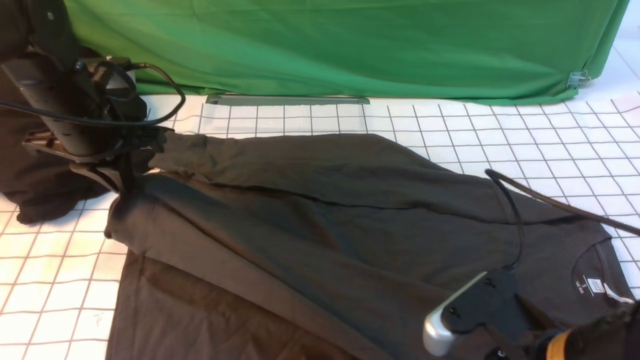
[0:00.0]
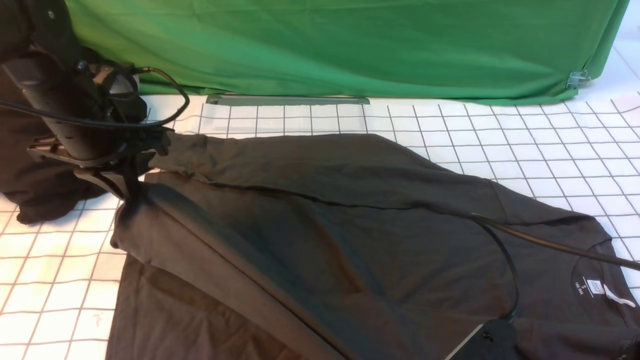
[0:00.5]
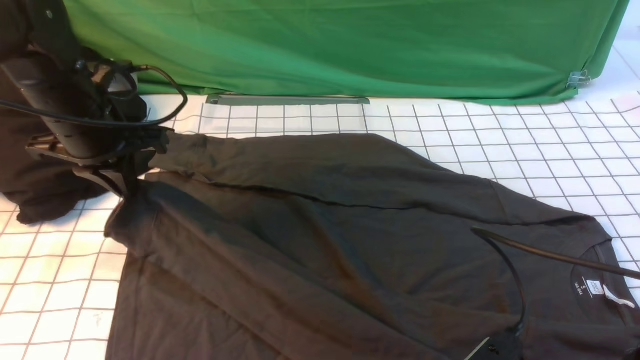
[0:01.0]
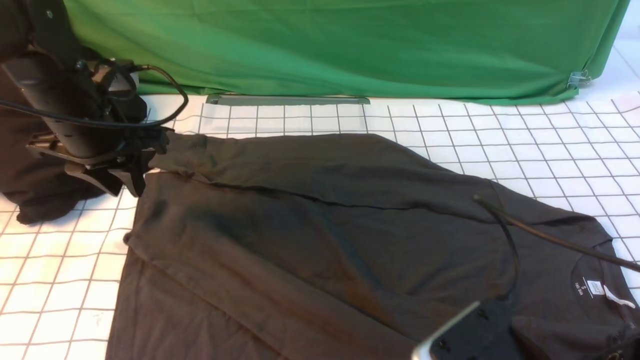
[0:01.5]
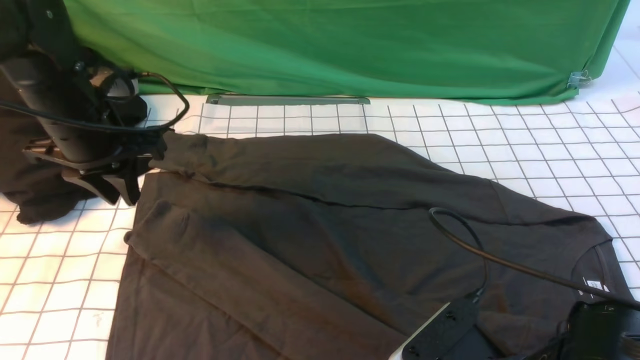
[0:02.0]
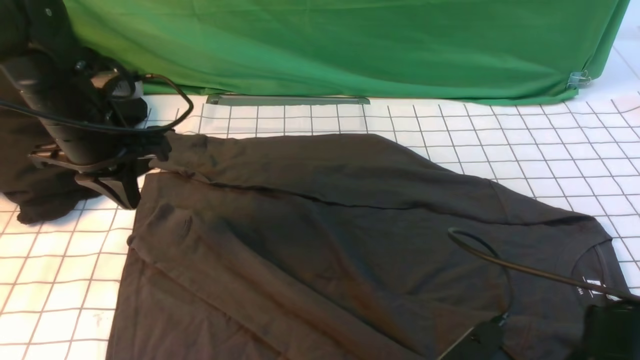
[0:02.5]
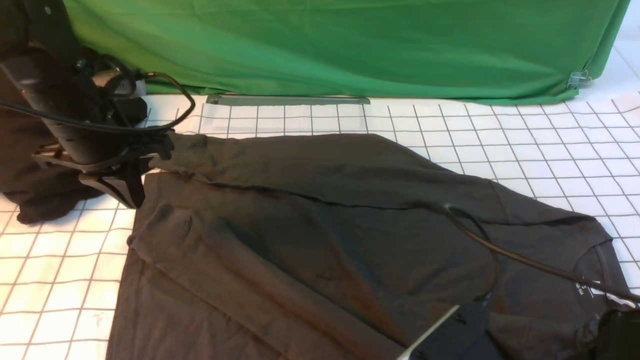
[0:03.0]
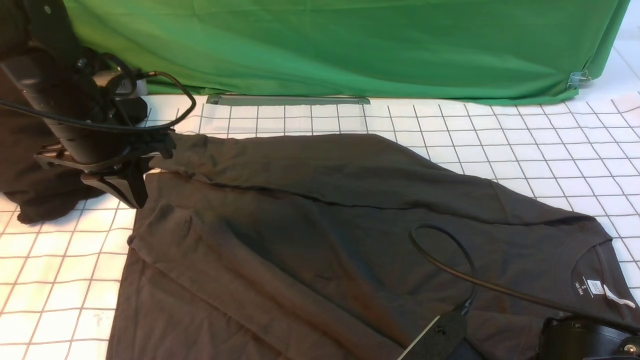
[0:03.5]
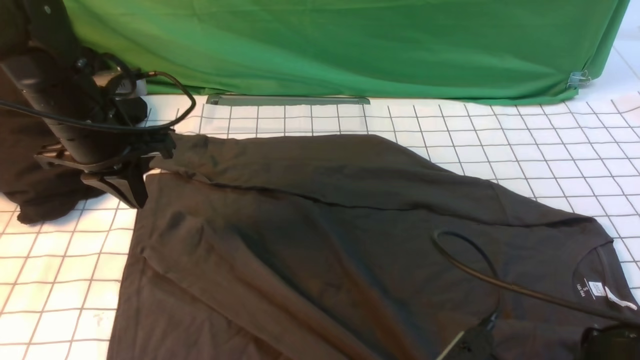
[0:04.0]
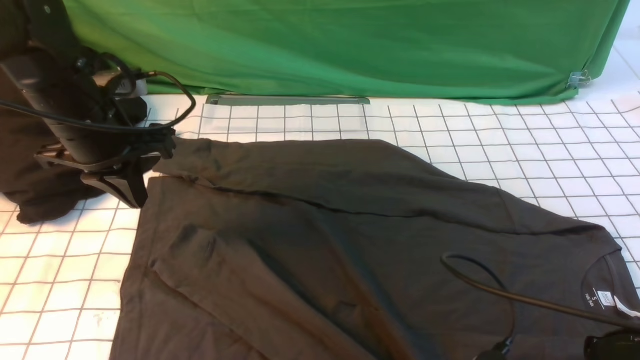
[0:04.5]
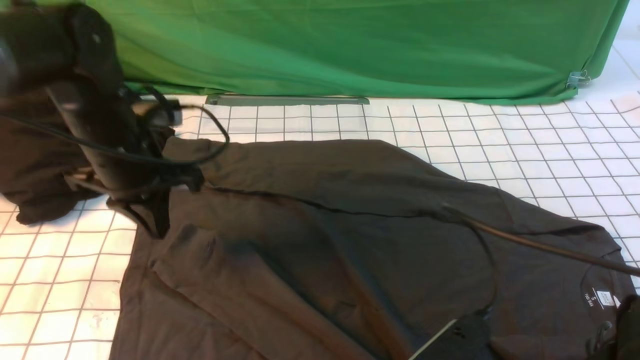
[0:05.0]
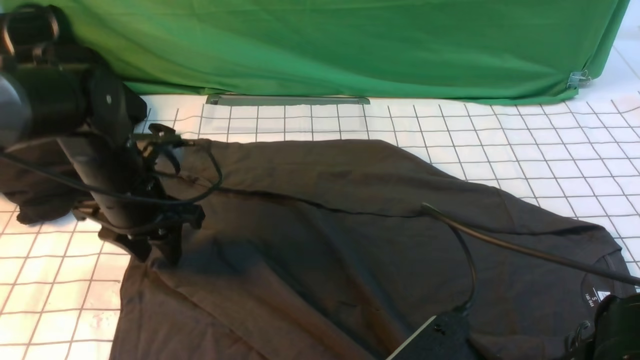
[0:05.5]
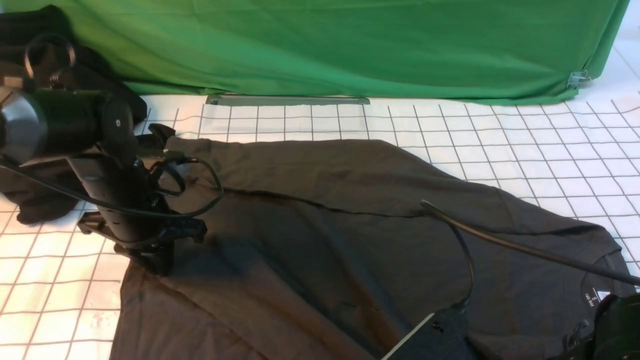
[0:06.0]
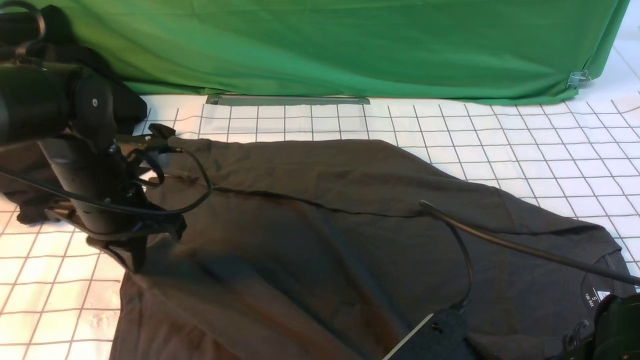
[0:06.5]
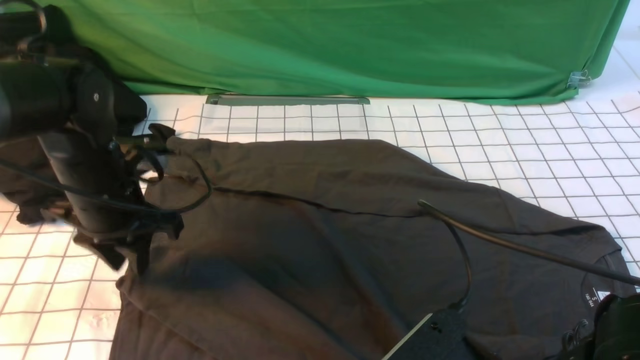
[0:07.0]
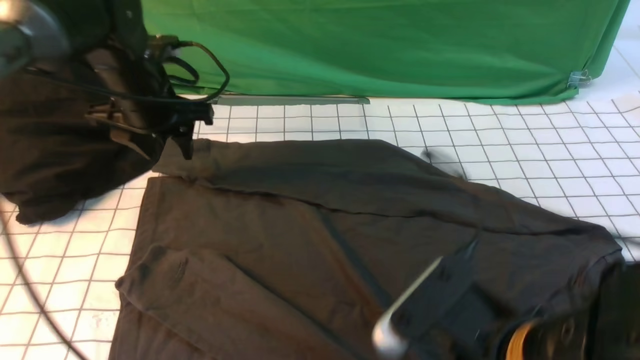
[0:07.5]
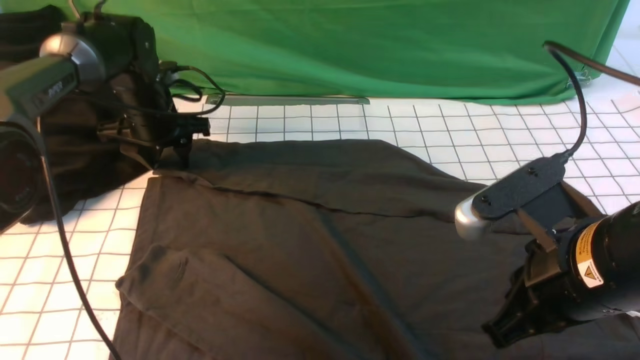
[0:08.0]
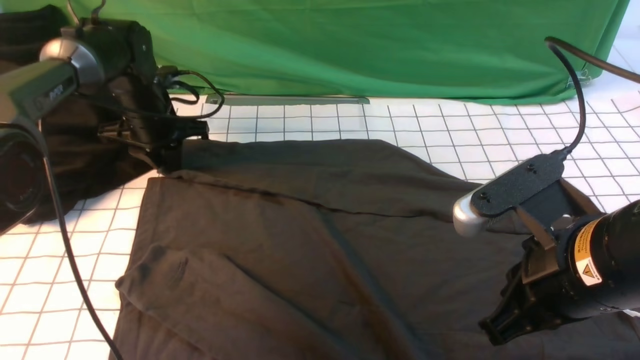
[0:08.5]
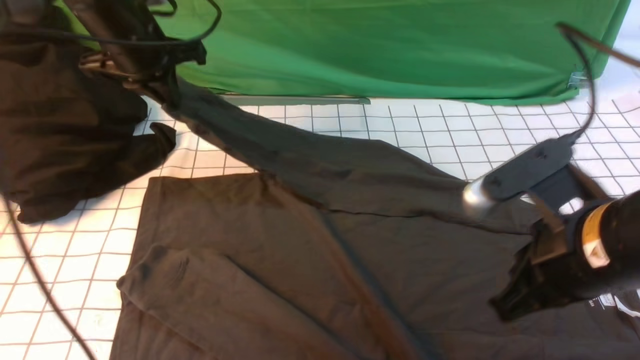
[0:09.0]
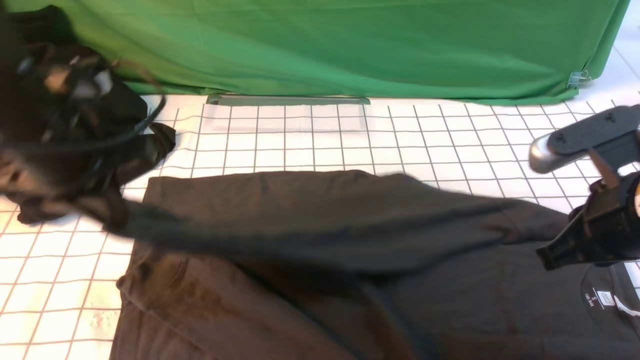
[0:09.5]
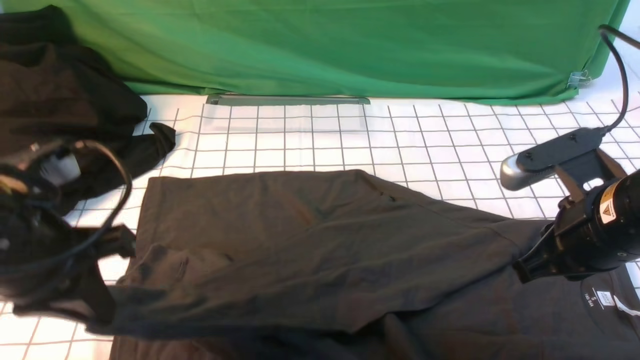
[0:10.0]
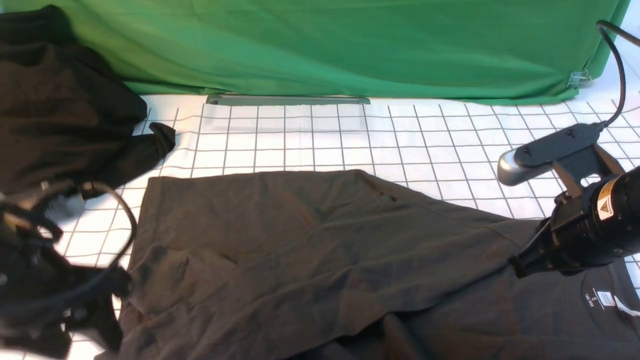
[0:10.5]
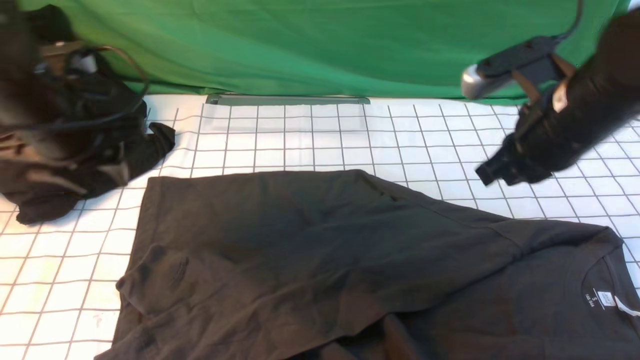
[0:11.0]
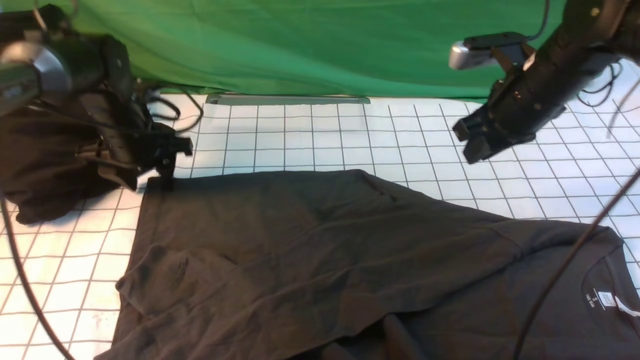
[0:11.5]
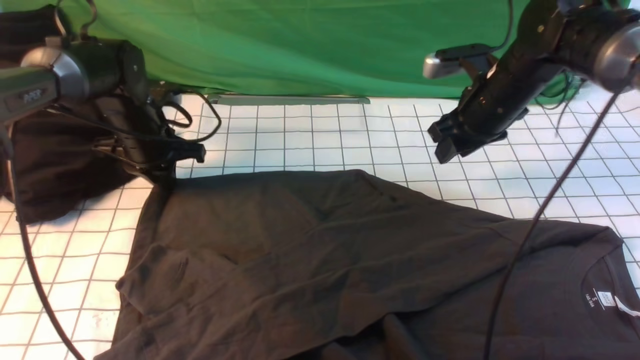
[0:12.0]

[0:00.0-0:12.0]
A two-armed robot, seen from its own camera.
Step, 0:02.0 to 0:08.5: use the left arm to clamp the cuff farthest from it.
Step, 0:09.0 to 0:10.5: use the left arm to drag and drop the cuff onto the cuff closest to the left arm.
0:00.0 to 0:02.0: The right gripper opens.
0:02.0 to 0:04.0: The right gripper closes its fingers.
0:04.0 to 0:06.0: The right gripper opens, while the left gripper travels downward by some 10 cm, and opens, then closes once more.
0:06.0 to 0:08.0: The left gripper shifts roughly 15 cm forward, and opens up. Meanwhile the right gripper heads forward and to the right, covering approximately 10 cm, and closes its fingers.
0:08.0 to 0:10.0: The left gripper travels backward by approximately 30 cm, and closes up. Meanwhile the right gripper travels forward by some 5 cm.
0:10.0 to 0:12.0: The left gripper travels forward and downward by some 30 cm, and opens, then closes again. The right gripper is displaced forward by roughly 20 cm, and opens up.

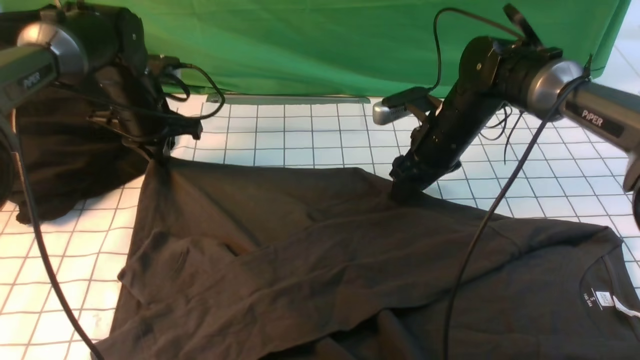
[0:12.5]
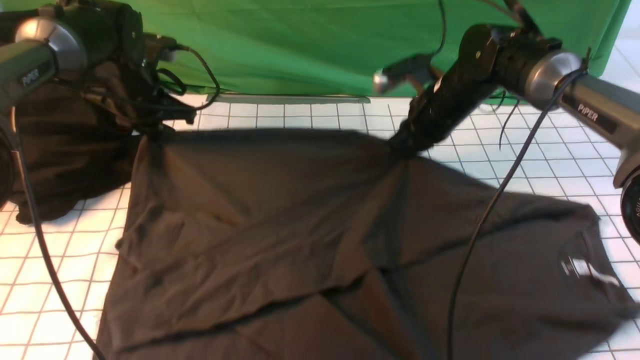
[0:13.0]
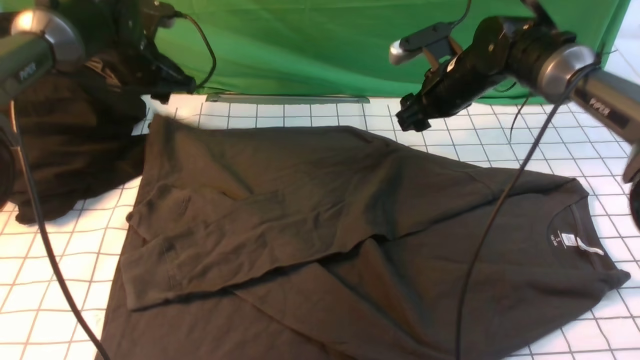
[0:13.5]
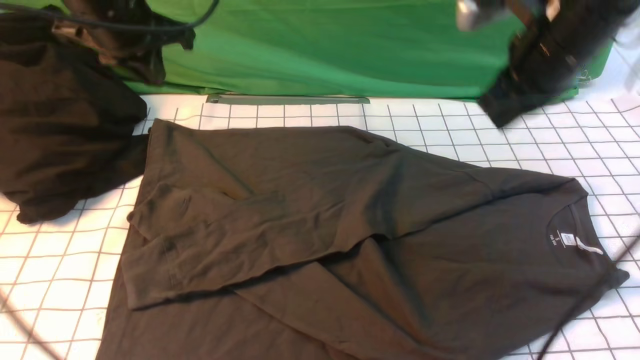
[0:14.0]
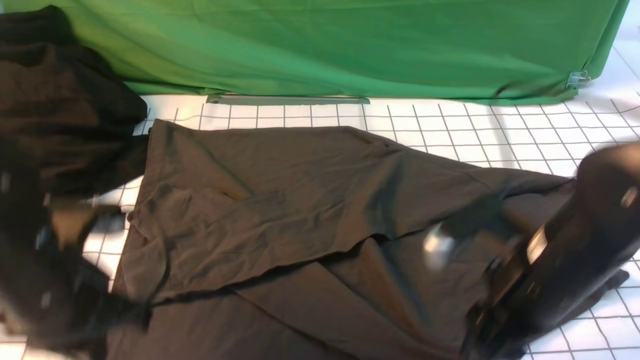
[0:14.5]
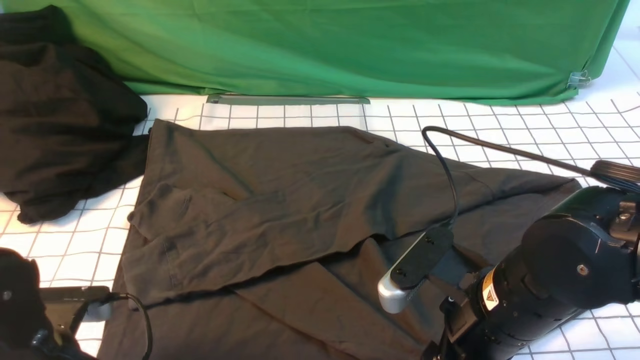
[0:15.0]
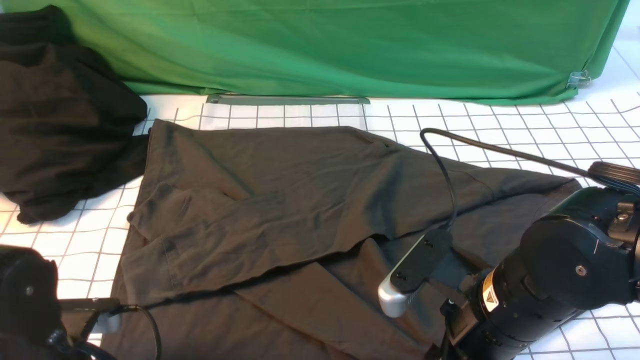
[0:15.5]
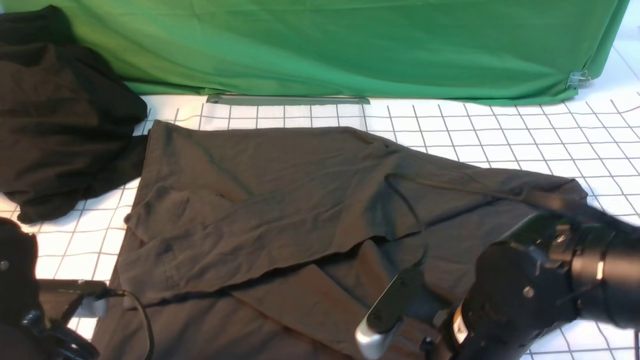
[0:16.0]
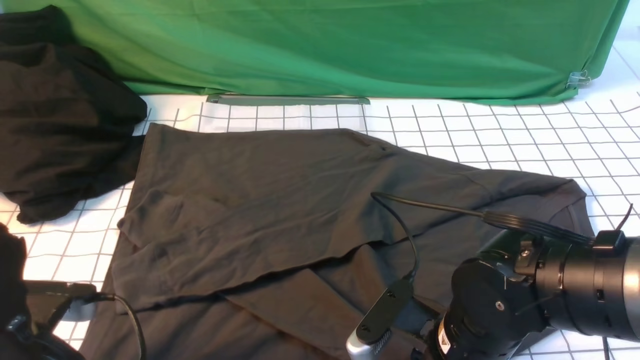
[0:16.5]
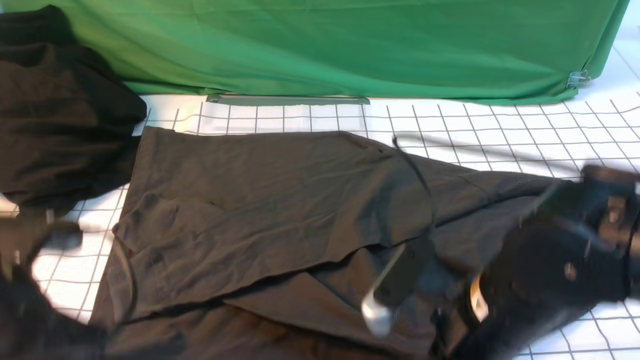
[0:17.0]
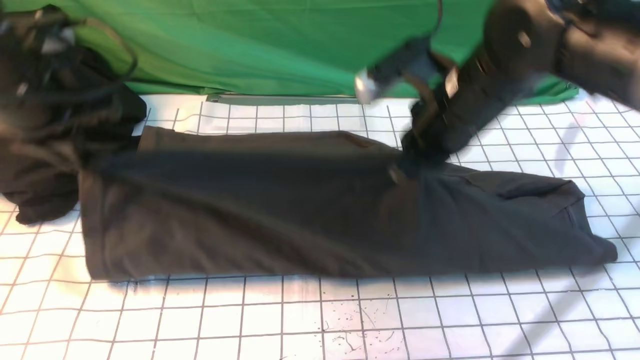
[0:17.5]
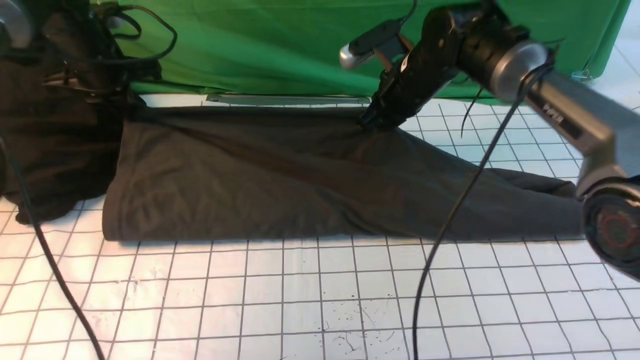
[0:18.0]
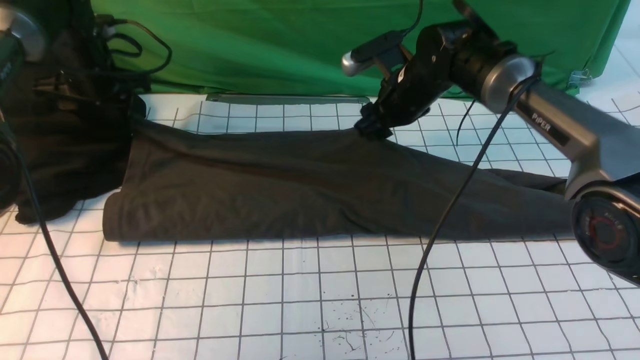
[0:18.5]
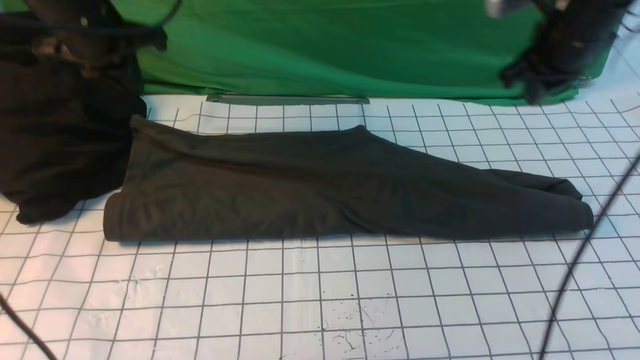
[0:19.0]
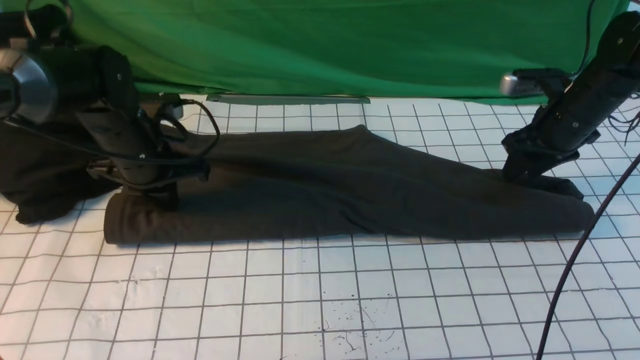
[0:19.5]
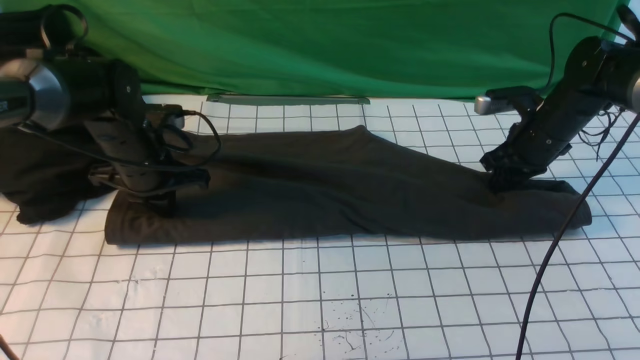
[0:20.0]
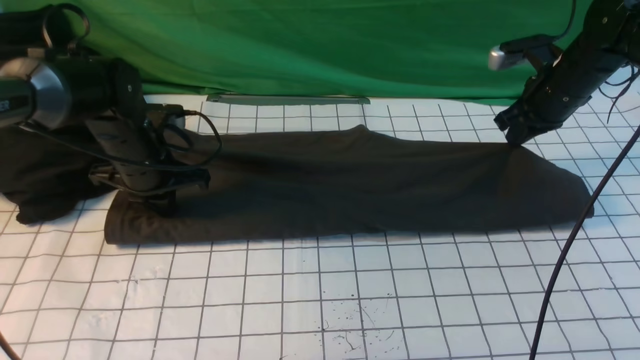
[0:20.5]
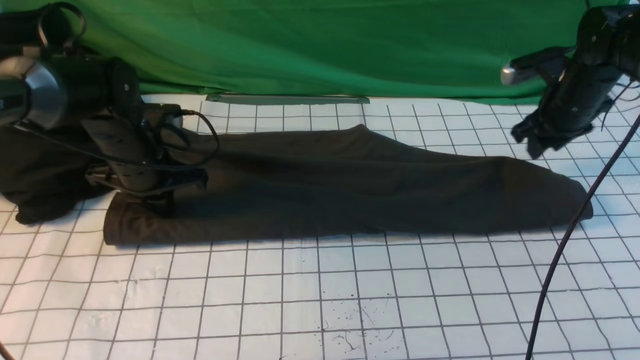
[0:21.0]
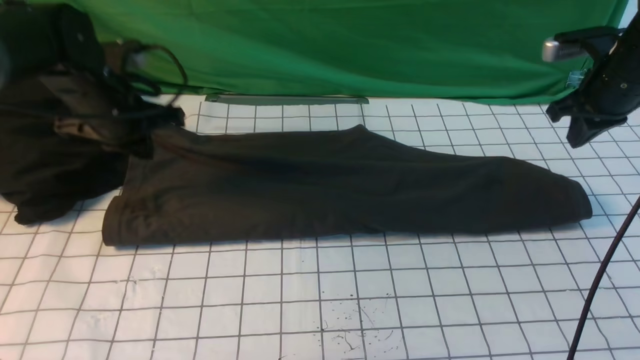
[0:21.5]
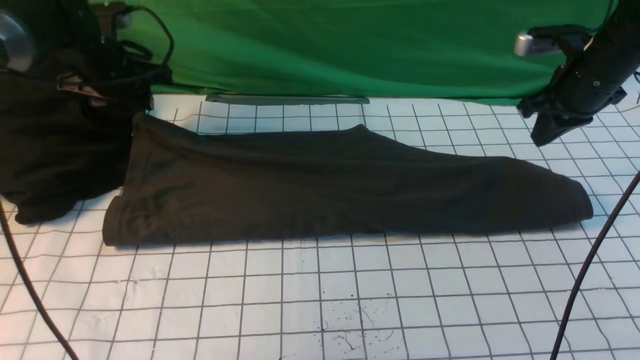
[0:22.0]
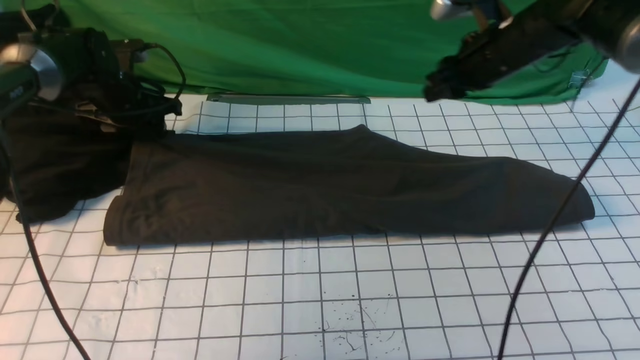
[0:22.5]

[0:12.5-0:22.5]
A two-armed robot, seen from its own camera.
Step, 0:12.5 to 0:17.0: use both arms simultaneously to clamp the lower edge of the clothing fabric.
Step, 0:17.5 to 0:18.5: use both arms to drag the lower edge of the fabric forward and fold it over the upper edge.
0:12.5 to 0:14.5: The grippers both shift backward by roughly 25 cm. The left gripper opens, then closes once more. The right gripper closes and opens again.
0:14.5 to 0:16.5: The left gripper travels backward by some 5 cm, and opens, then closes again. The right gripper heads downward and to the left, covering approximately 10 cm.
0:16.5 to 0:18.5: Both grippers travel together forward, about 35 cm. The left gripper opens. The right gripper closes and opens again.
0:18.5 to 0:20.5: The left gripper travels backward, to the right and downward by approximately 15 cm, and closes up; the right gripper travels to the right by approximately 15 cm, and closes.
0:20.5 to 0:22.5: The right gripper moves to the left, about 10 cm, and opens, while the left gripper shifts roughly 10 cm forward and to the left, and opens.
